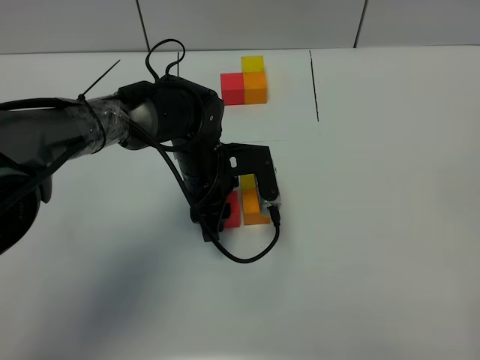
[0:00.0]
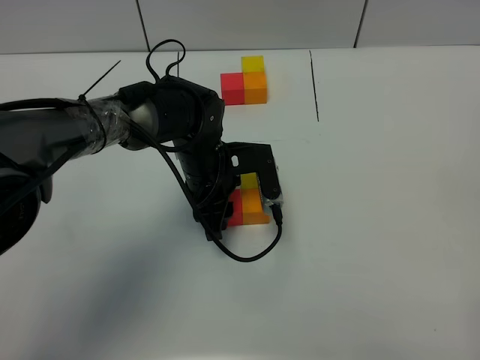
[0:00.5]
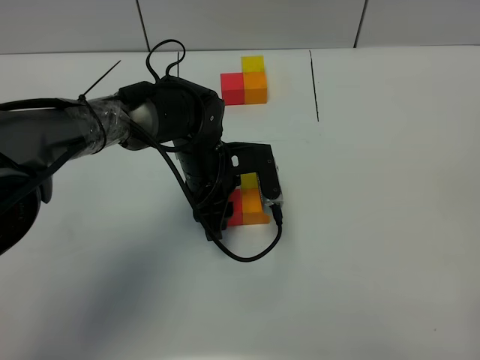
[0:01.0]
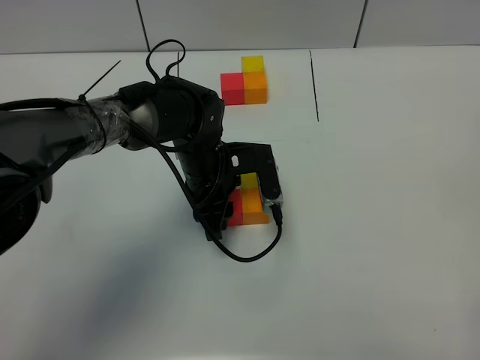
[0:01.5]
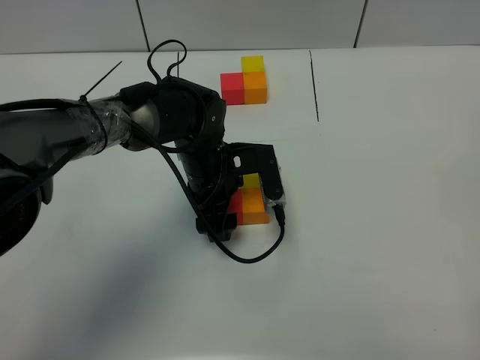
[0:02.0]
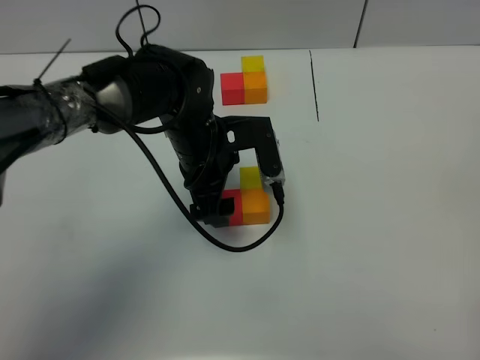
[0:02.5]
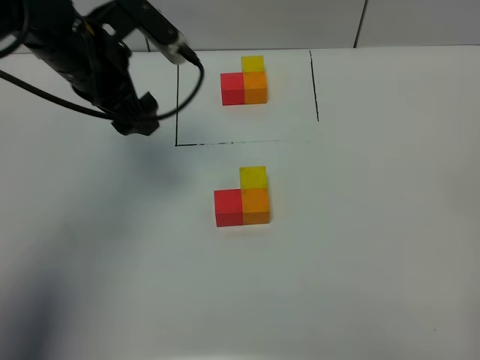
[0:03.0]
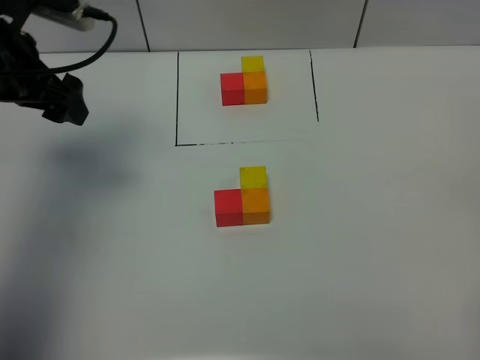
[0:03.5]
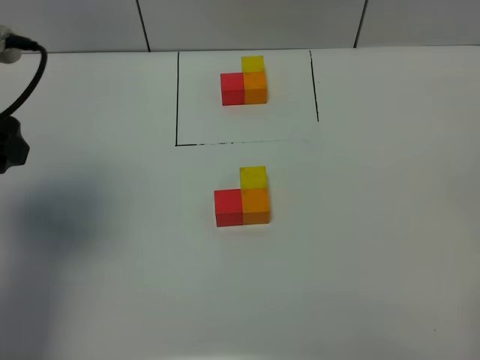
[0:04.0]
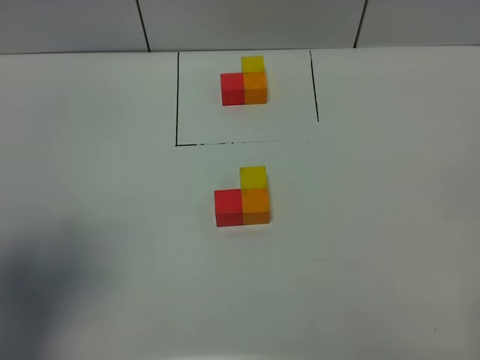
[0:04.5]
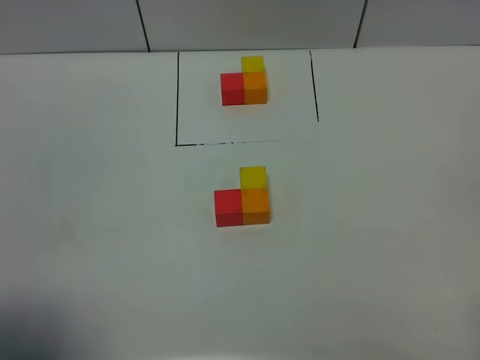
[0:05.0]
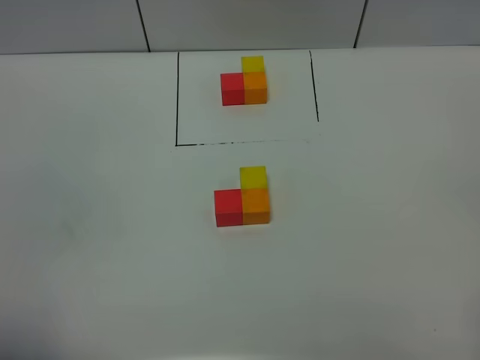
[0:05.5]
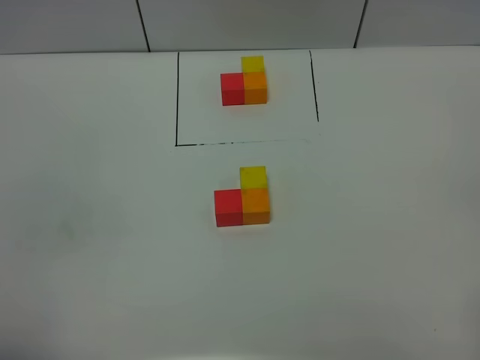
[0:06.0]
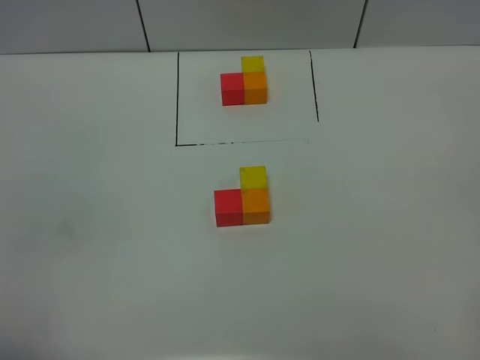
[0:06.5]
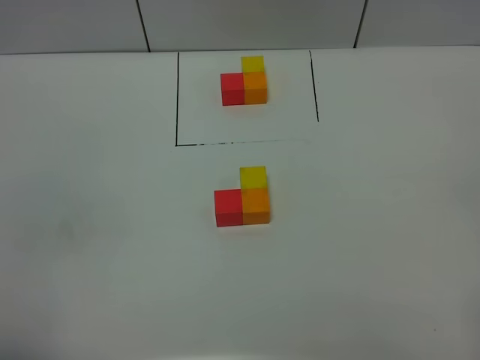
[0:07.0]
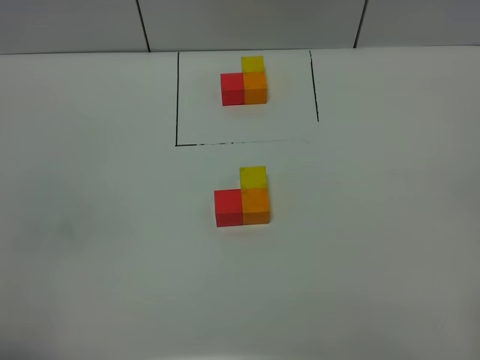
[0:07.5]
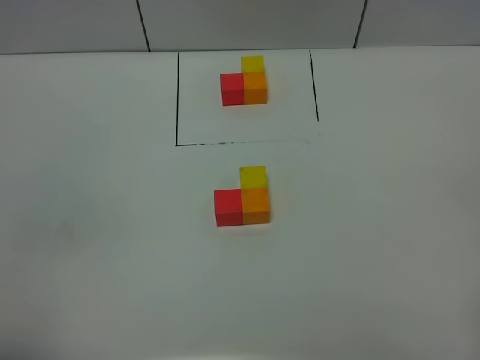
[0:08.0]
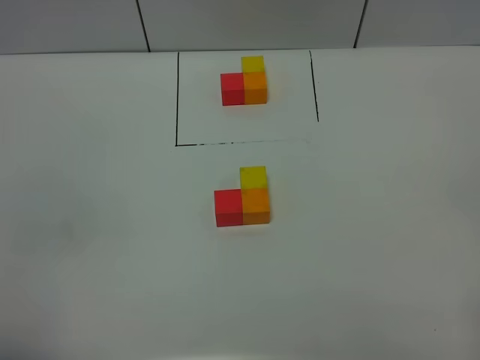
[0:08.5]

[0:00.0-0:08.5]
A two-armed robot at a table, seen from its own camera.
Task of the whole recording: According to the building block template in front, assemble the scattered blocks together.
Step, 0:00.0 to 0:02.0: Put the red build block on the left of the ornage build block.
0:00.0 to 0:02.0: The left gripper opens up.
0:02.0 to 0:04.0: The left gripper moves to the left, upward and backward, about 35 cm.
0:04.0 to 0:06.5: The left gripper moves backward, about 25 cm, and closes its fingers.
0:06.5 to 0:08.5: Both grippers stay put.
